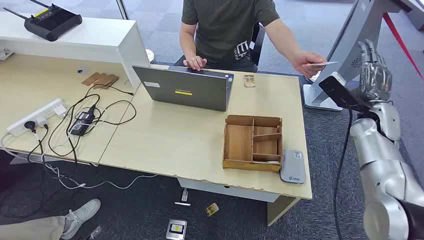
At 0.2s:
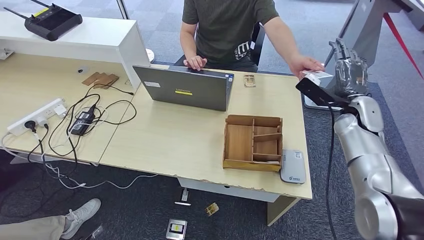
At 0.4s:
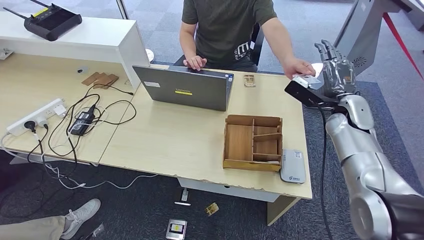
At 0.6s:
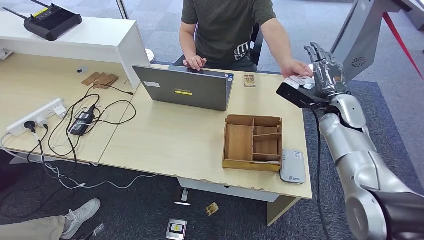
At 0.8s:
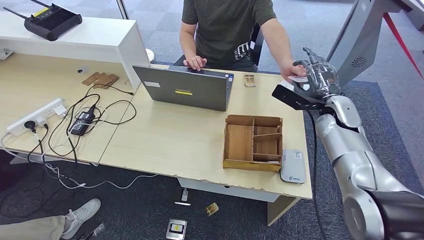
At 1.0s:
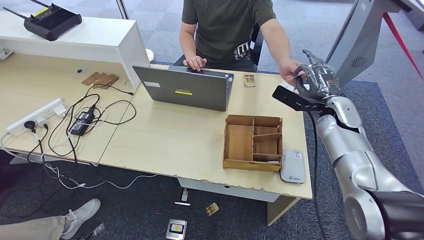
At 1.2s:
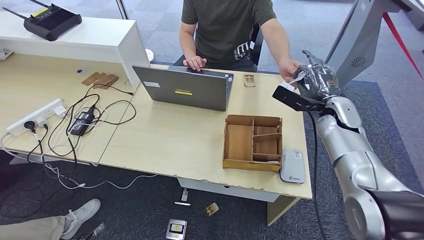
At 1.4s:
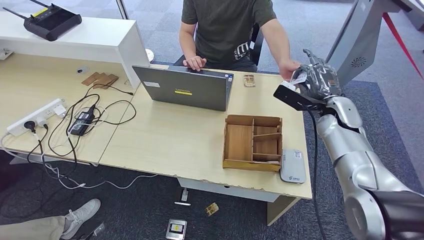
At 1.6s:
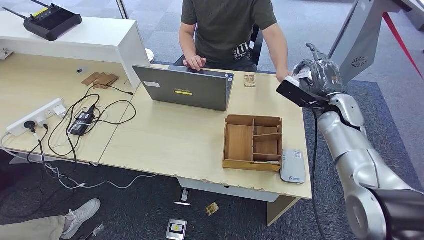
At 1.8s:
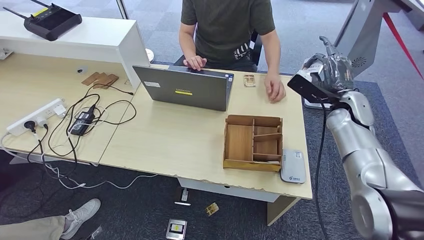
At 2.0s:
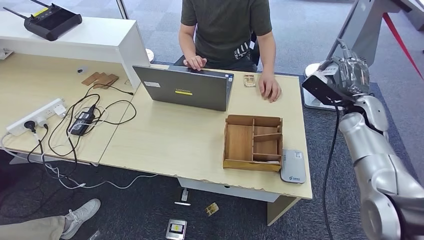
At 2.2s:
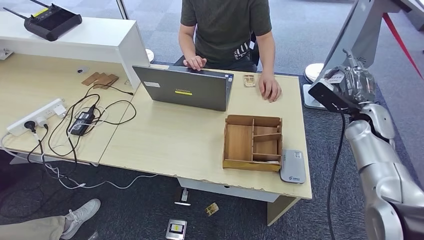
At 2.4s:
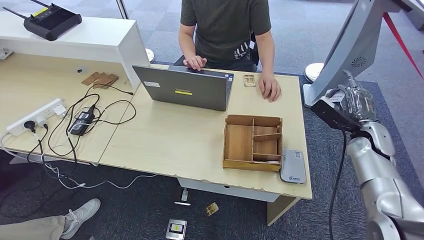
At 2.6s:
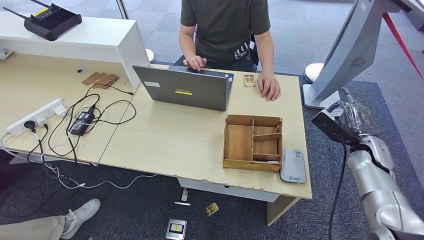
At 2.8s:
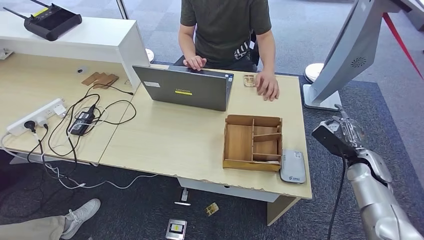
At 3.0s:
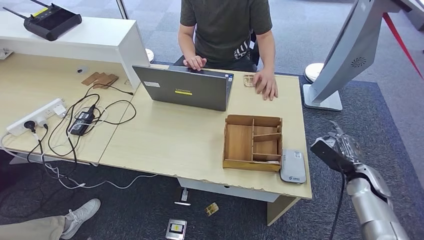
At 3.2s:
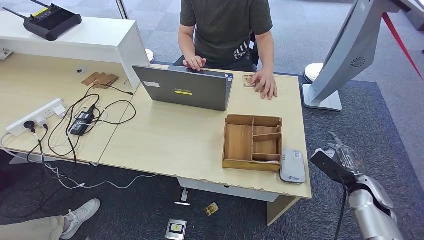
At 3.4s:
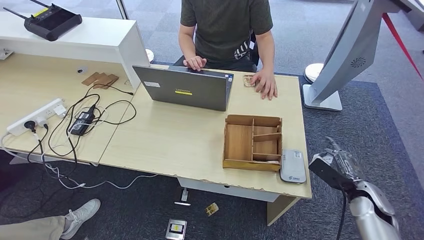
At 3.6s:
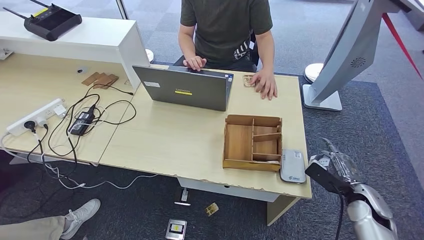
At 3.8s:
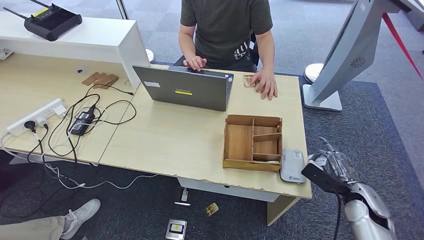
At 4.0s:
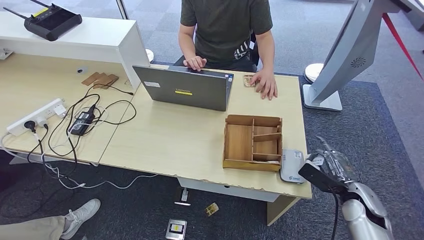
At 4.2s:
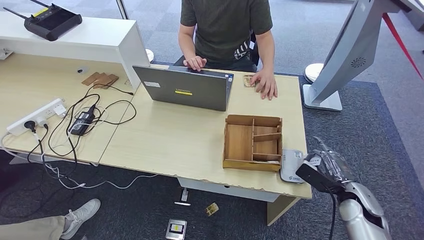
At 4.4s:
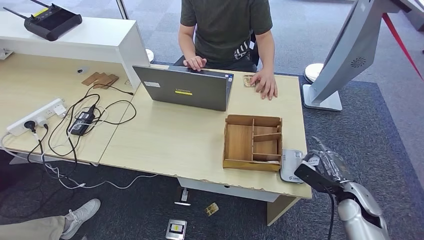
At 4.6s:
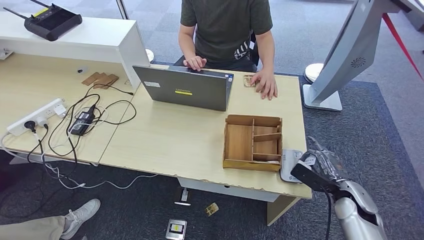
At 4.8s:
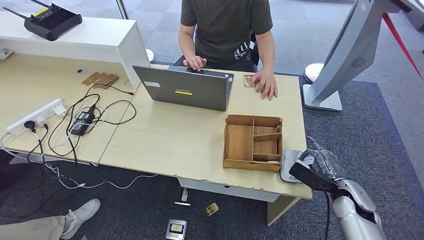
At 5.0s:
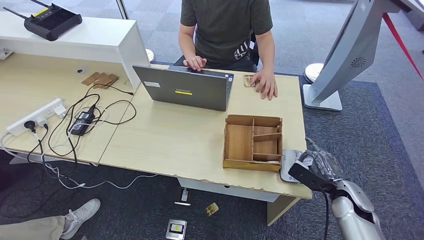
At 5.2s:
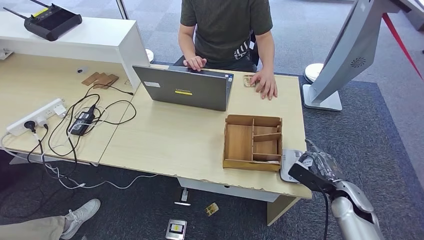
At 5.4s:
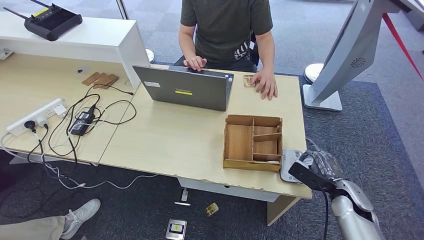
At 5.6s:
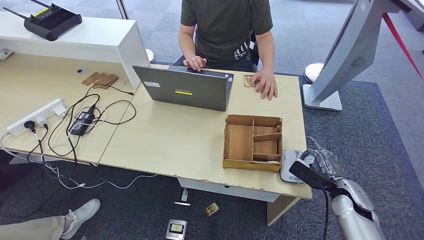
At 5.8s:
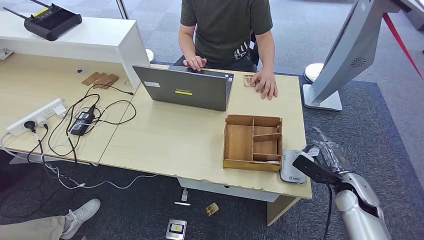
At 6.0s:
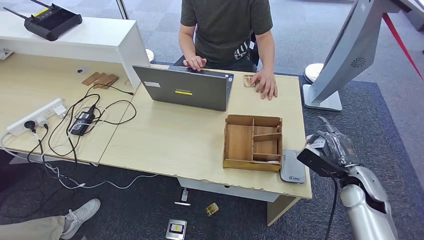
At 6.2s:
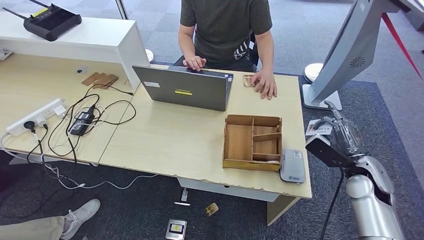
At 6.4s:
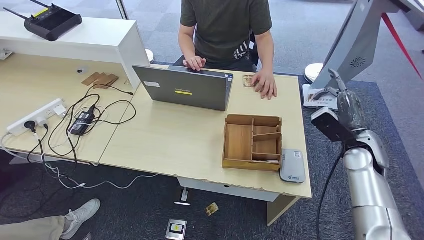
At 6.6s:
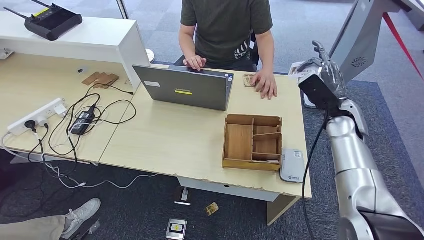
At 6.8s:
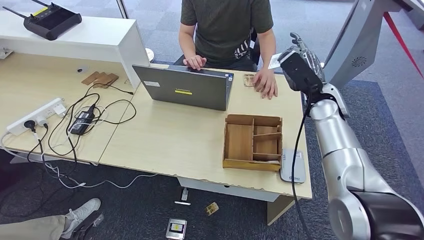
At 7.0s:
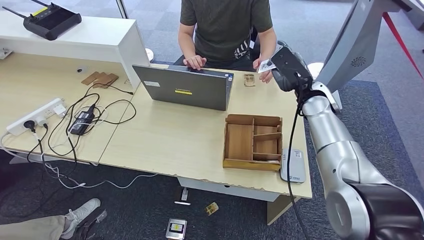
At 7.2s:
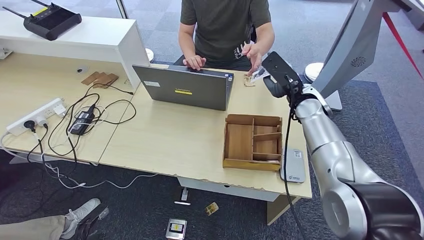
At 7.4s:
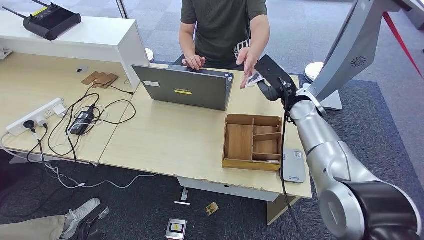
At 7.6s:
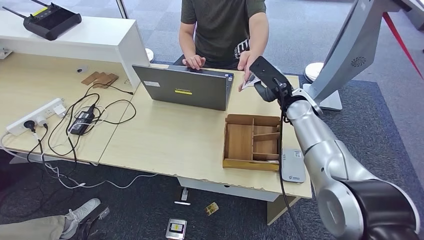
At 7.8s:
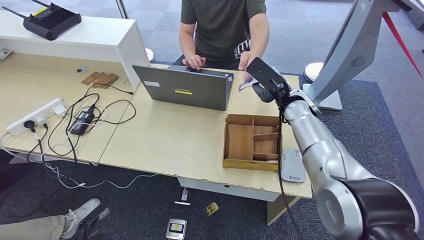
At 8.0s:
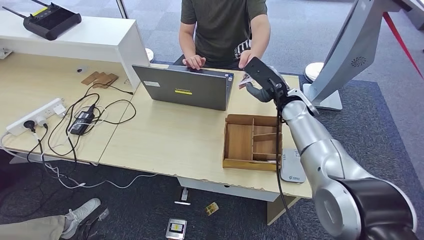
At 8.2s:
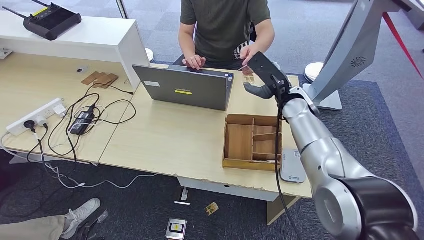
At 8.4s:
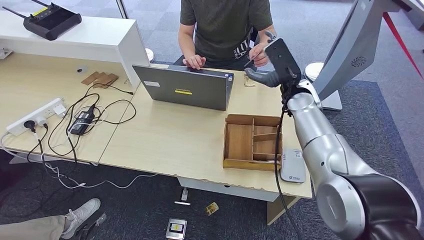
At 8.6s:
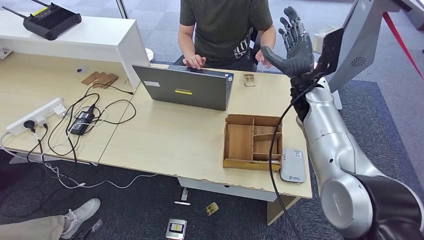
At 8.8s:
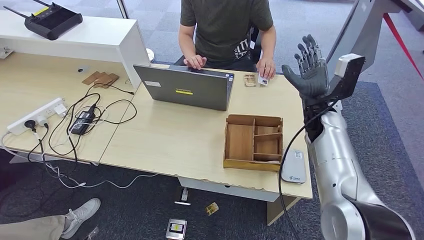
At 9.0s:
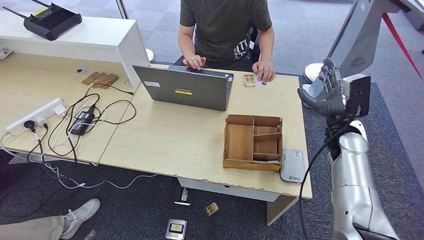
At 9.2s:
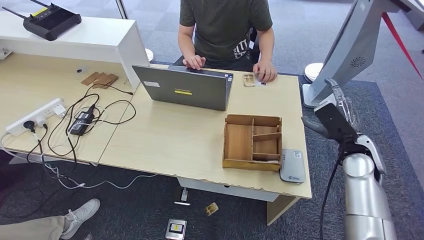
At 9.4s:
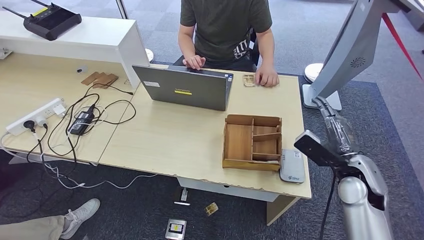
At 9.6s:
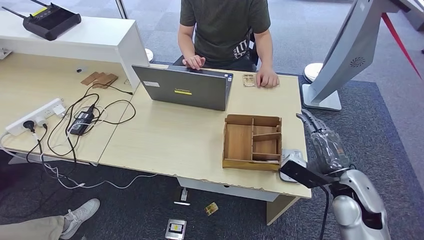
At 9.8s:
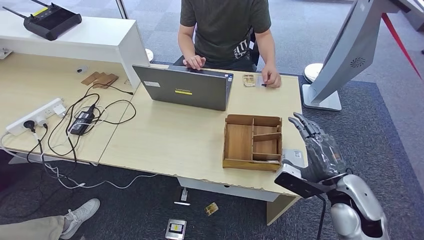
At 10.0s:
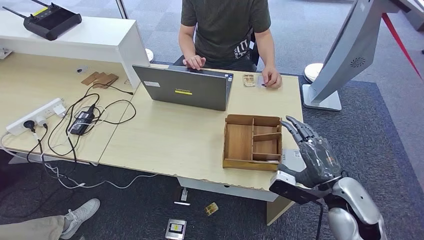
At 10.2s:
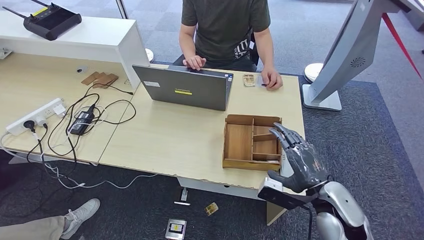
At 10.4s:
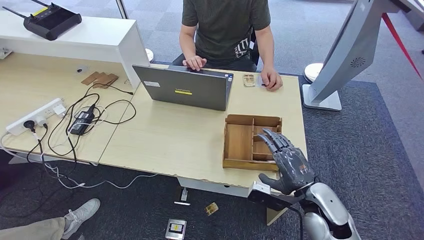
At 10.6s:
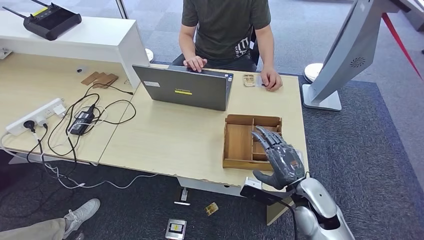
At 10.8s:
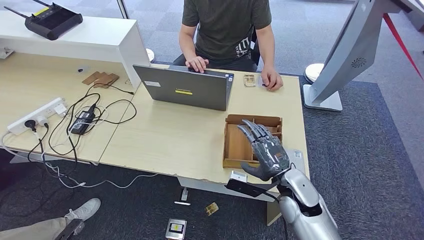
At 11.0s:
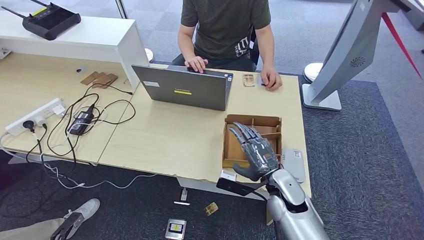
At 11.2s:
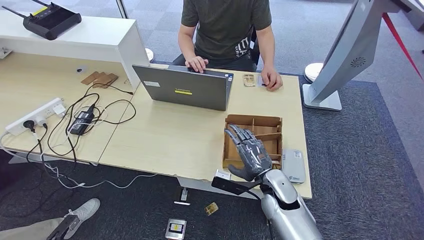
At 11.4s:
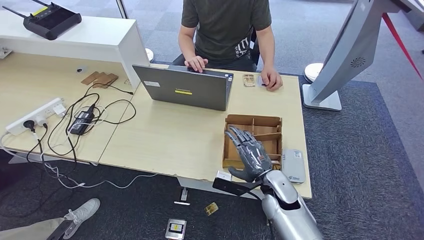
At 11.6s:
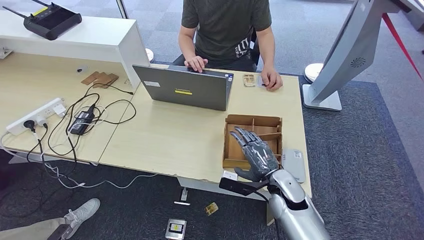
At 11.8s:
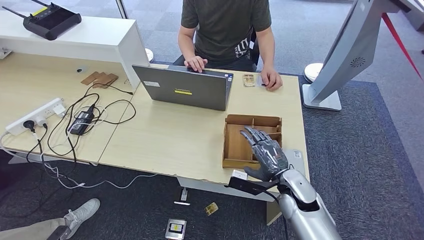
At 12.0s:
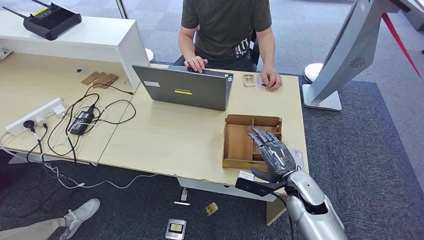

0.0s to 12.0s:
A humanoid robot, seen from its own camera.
Step, 0.0s to 3.2s: Take the ID card from the person's hand.
Step, 3.4s to 6.0s: Place the ID card on the card reader.
Step, 6.2s to 10.0s: Hand the ID card to the person.
1.6s to 3.0s: The left hand moves roughly 5 cm. Meanwhile the right hand is displaced downward, backward and to the right by roughly 20 cm.
3.0s to 4.4s: The right hand is displaced backward and to the left by some 5 cm.
4.4s to 6.0s: The hands make only small movements.
6.0s to 7.6s: The left hand heads forward, covering approximately 10 cm. The right hand heads to the left, upward and forward, covering roughly 25 cm.
7.6s to 9.0s: The left hand heads backward, covering about 5 cm; the right hand heads to the right, covering roughly 10 cm.
9.0s to 10.4s: The right hand is displaced backward, downward and to the left by roughly 20 cm.
10.4s to 12.0s: The right hand is displaced forward by approximately 5 cm, and travels to the left and back again, some 10 cm each way.

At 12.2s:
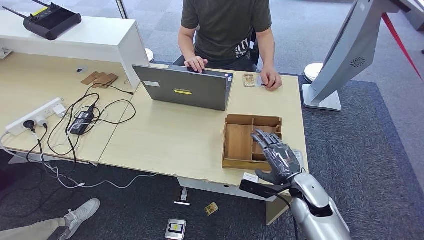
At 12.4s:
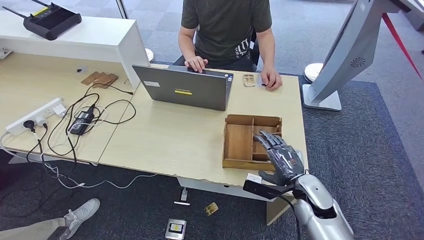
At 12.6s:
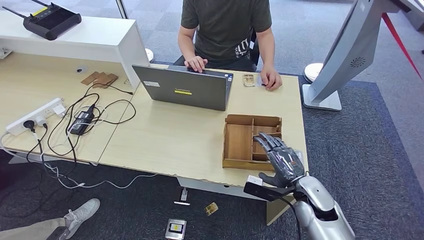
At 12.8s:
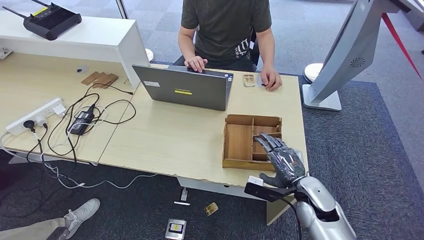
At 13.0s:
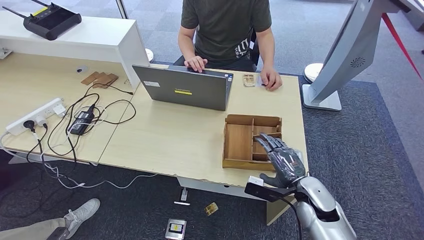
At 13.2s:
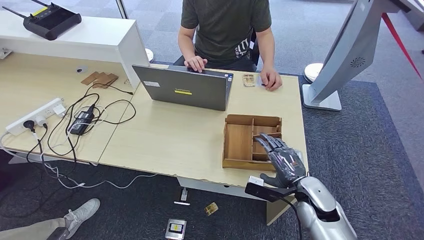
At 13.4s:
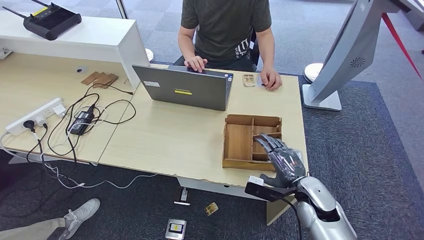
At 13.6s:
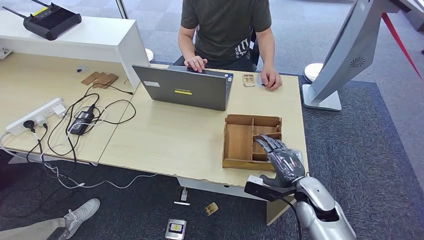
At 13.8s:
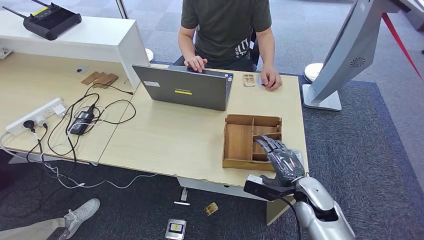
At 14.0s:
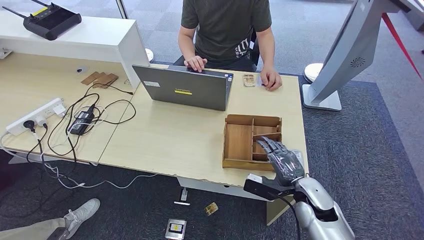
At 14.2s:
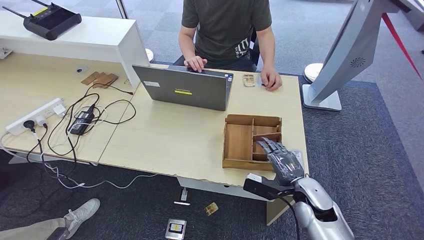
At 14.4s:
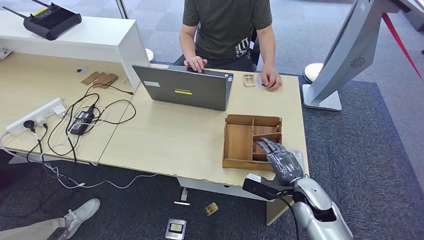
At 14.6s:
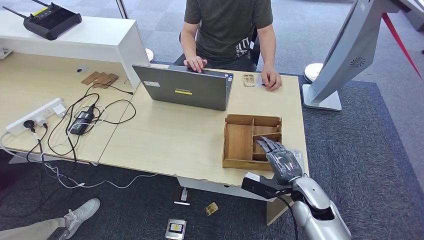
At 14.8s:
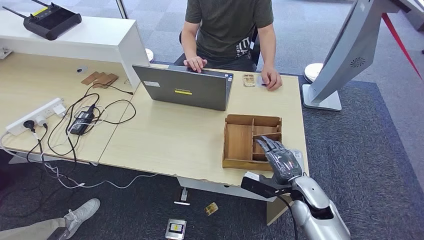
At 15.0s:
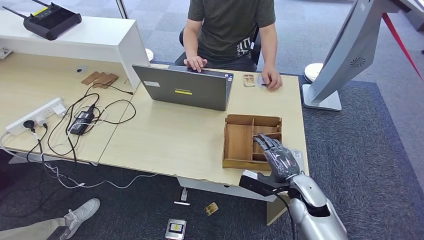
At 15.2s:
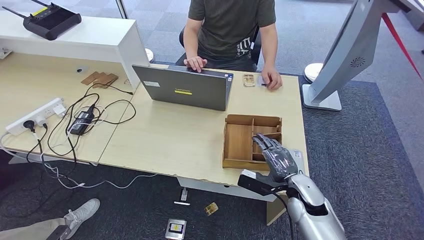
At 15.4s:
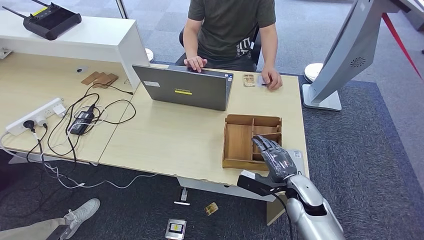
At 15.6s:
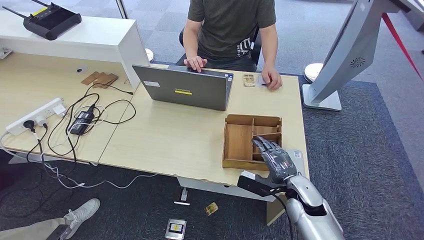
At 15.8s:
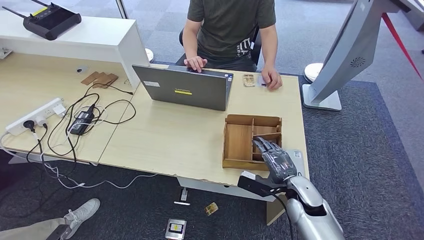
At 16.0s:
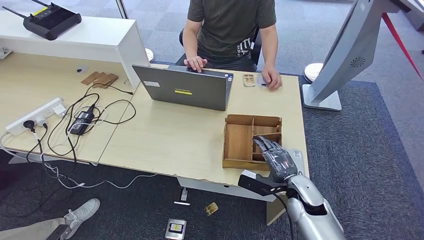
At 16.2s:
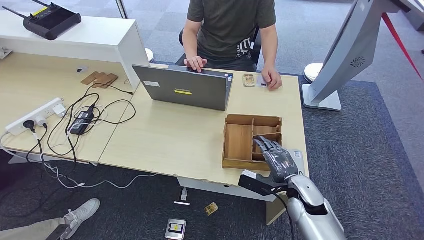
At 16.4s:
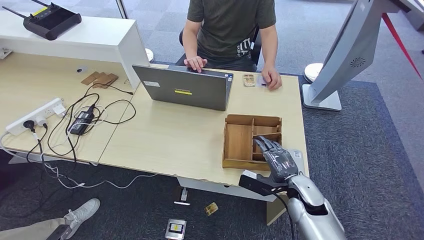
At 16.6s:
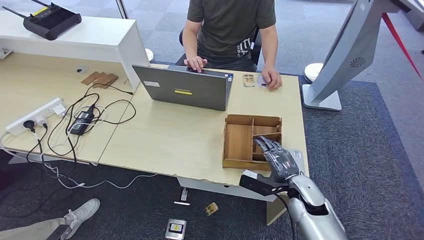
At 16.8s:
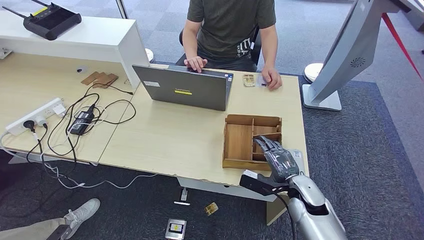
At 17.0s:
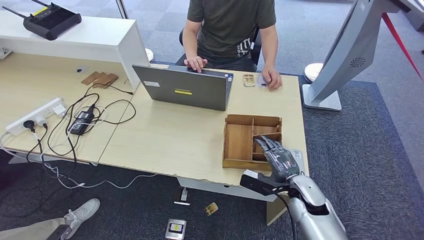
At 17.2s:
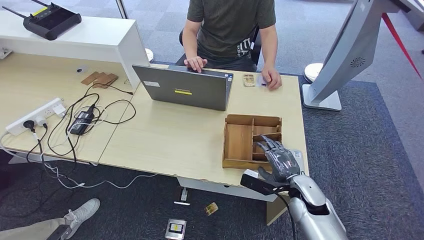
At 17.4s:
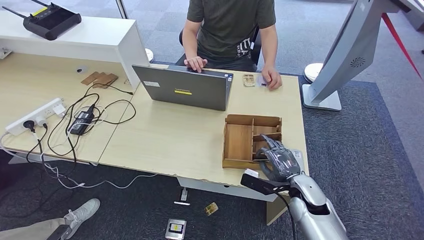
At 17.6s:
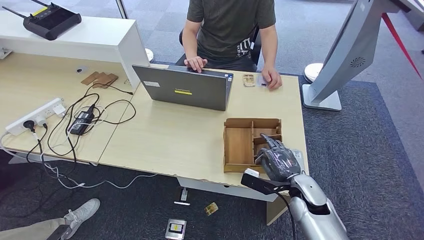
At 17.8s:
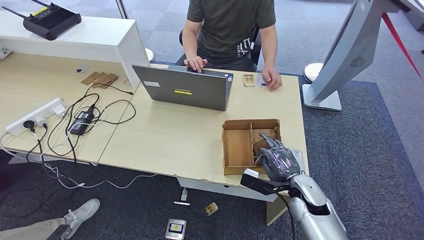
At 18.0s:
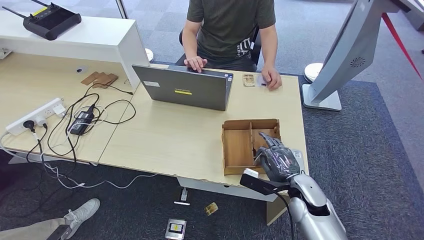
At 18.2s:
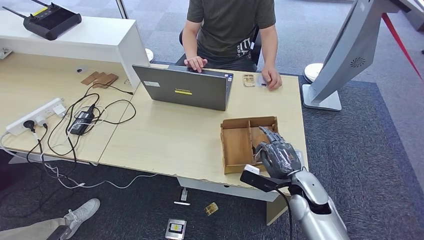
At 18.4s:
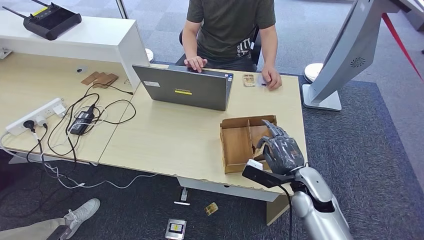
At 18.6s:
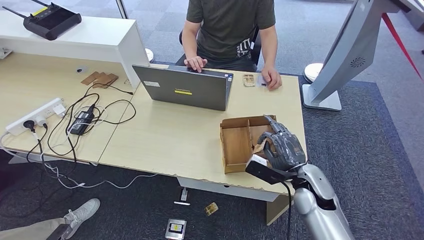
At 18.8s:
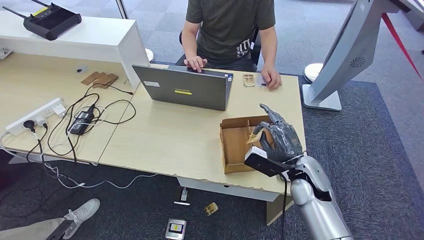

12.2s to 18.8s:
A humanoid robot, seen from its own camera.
12.2s to 15.4s: The hands make only small movements.
15.4s to 17.2s: Both hands stay put.
17.2s to 18.8s: The right hand travels upward by approximately 5 cm.
